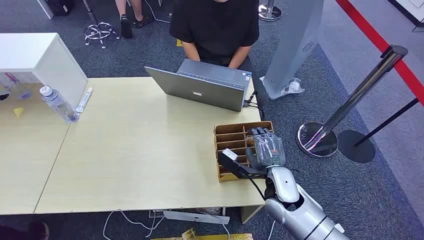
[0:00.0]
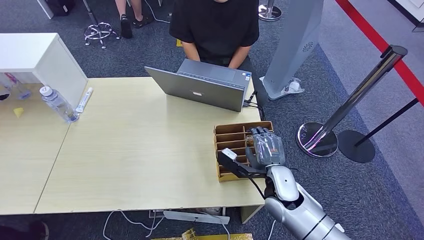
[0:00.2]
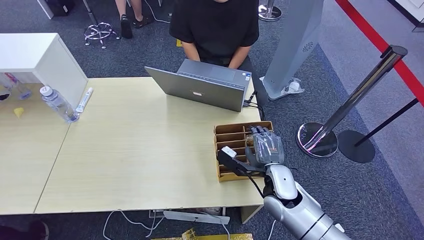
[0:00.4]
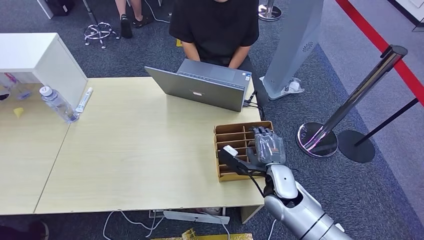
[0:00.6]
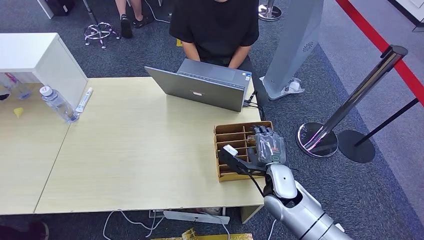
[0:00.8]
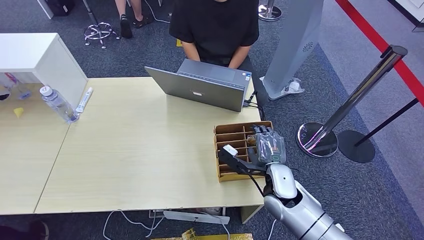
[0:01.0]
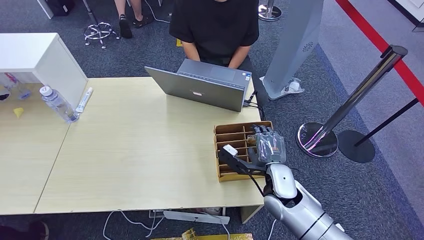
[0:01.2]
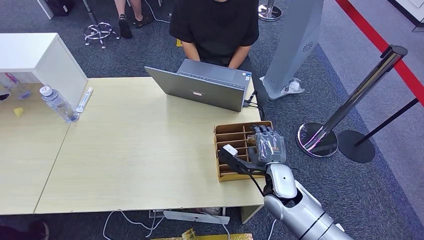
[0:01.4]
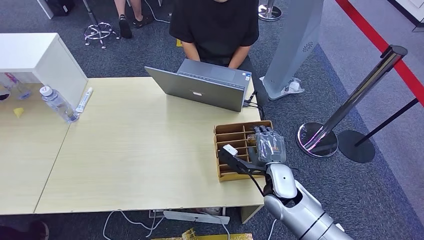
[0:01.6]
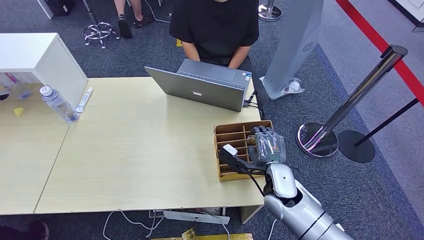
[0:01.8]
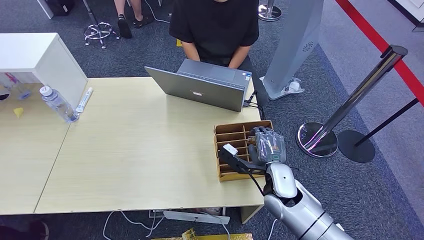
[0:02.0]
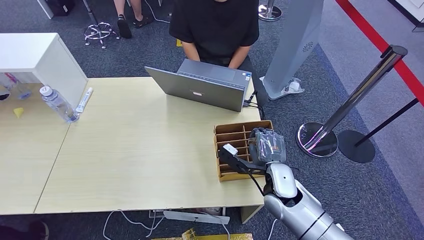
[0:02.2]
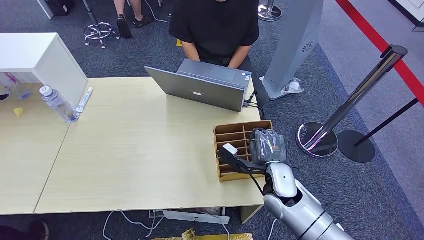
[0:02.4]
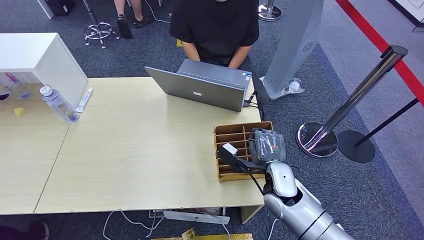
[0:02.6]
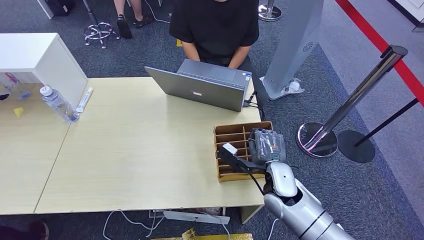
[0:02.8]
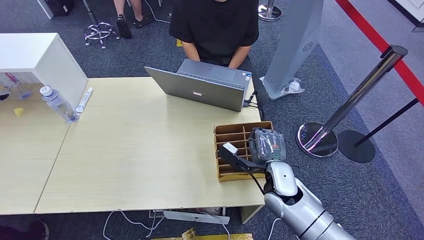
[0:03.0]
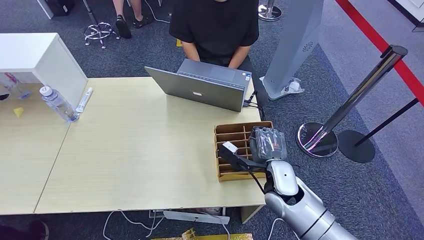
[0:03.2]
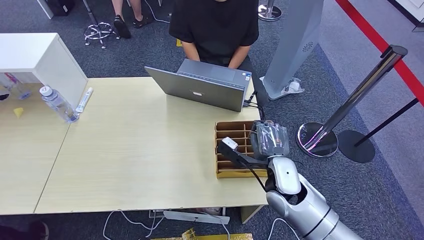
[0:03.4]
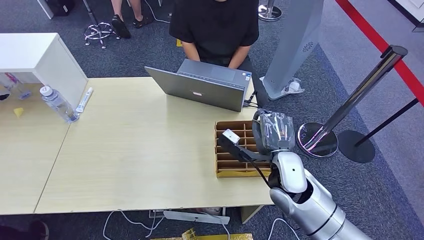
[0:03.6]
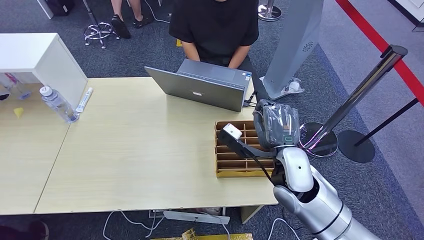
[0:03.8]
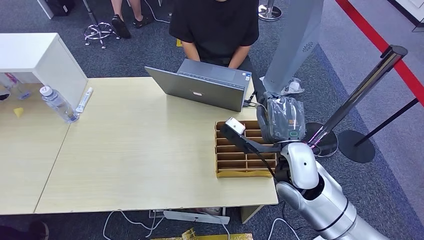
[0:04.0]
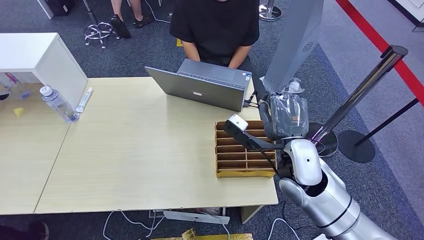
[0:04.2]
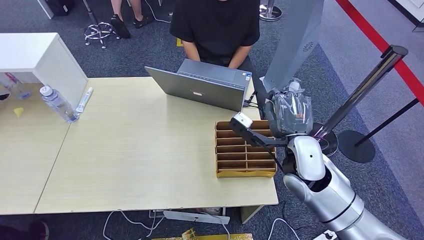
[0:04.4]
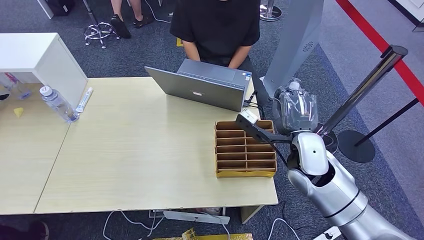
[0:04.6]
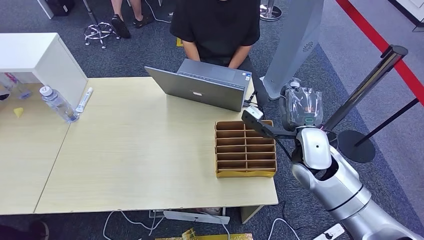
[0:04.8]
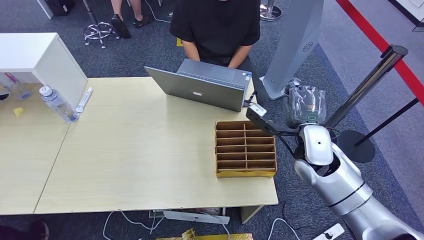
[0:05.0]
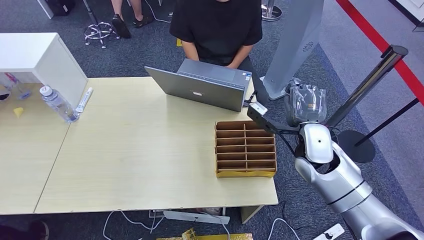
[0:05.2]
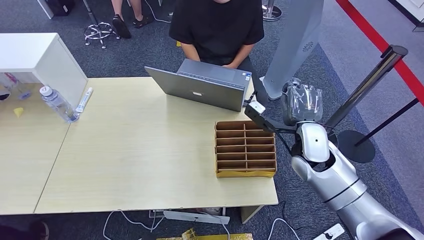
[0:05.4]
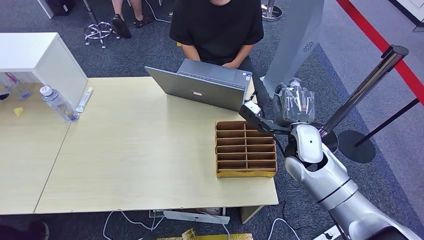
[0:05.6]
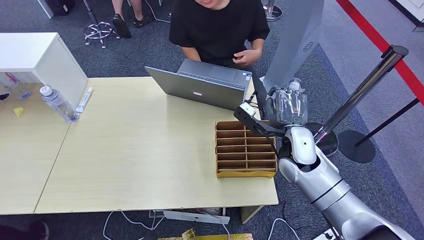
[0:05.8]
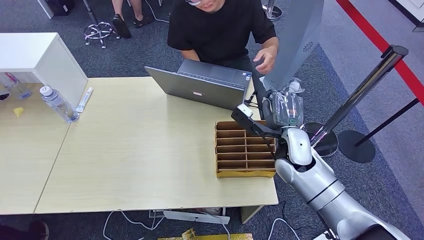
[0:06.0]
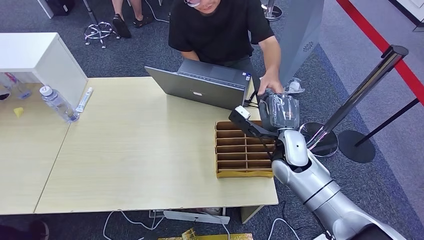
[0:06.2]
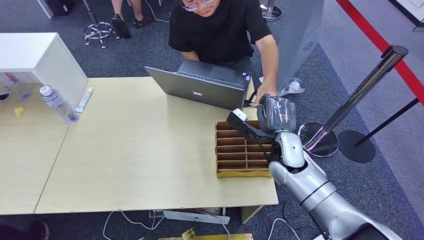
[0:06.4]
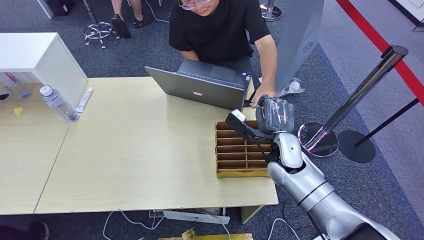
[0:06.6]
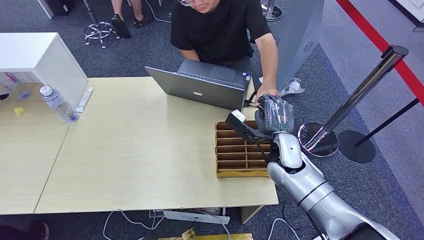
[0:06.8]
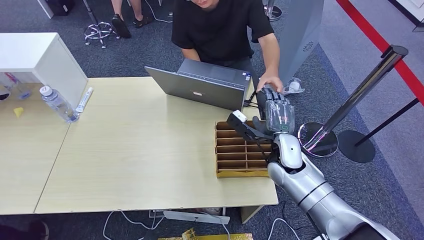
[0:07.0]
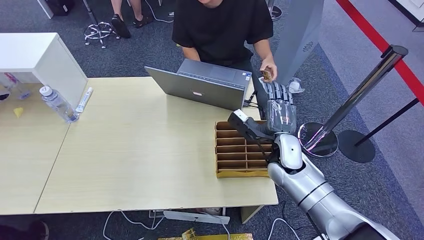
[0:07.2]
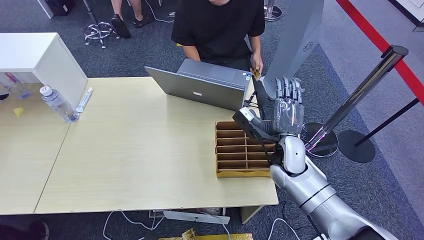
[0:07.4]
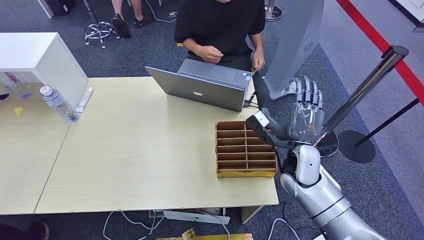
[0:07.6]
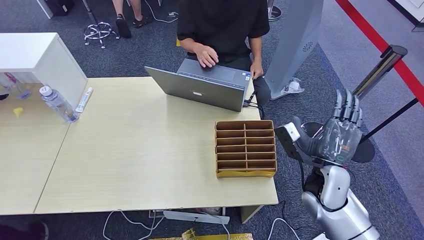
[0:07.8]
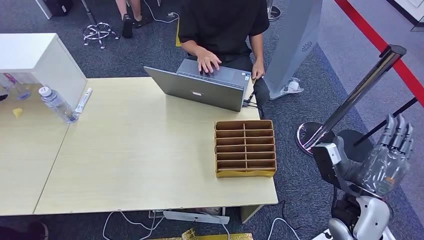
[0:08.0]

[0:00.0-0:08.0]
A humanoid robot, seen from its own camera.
Task of the whole recording: Pick up the card and hand it over to the target person.
Step, 0:00.0 to 0:04.0: Pick up the key card from the card box.
Step, 0:04.2 to 0:08.0: Hand the key card to the target.
0:01.6 to 0:03.2: The hands make only small movements.
0:03.2 to 0:04.8: The right hand is displaced to the right and forward by about 10 cm.
0:04.8 to 0:06.4: The right hand shifts roughly 10 cm to the left and downward.
0:06.4 to 0:08.0: The right hand heads backward and to the right, covering approximately 35 cm.
